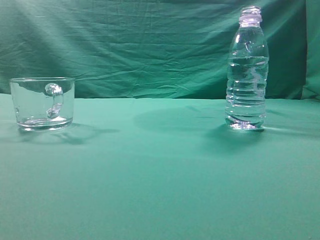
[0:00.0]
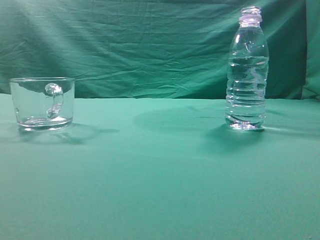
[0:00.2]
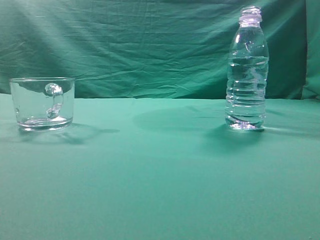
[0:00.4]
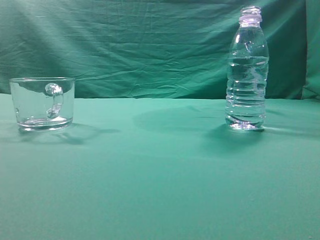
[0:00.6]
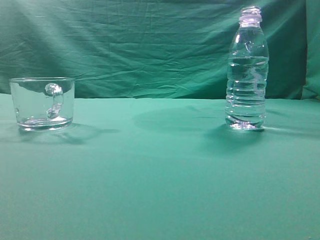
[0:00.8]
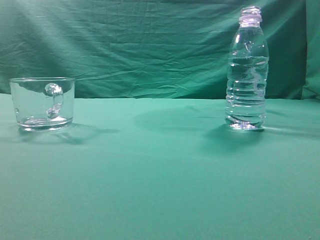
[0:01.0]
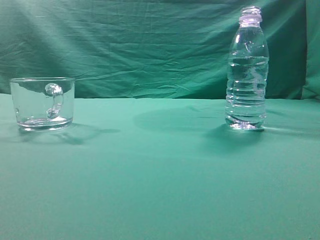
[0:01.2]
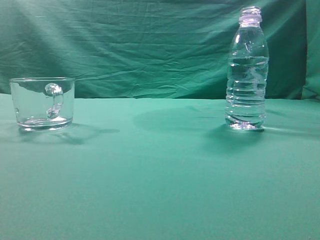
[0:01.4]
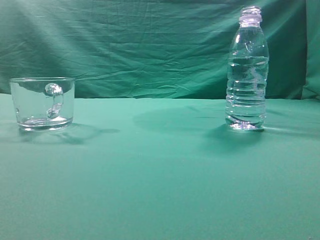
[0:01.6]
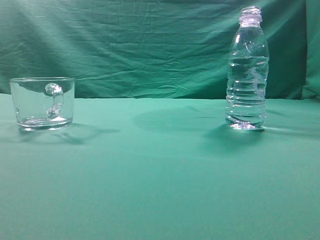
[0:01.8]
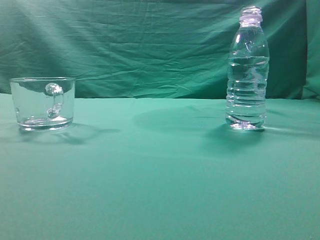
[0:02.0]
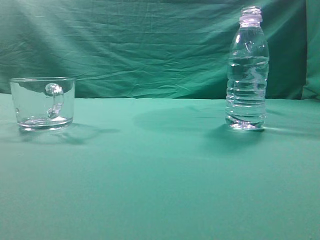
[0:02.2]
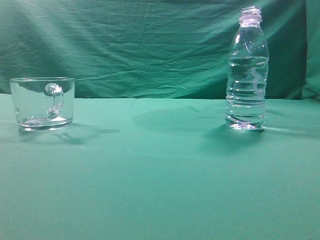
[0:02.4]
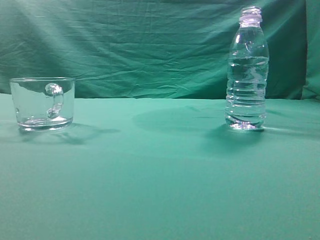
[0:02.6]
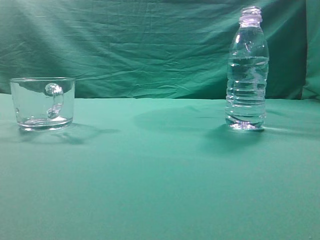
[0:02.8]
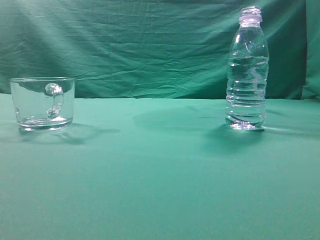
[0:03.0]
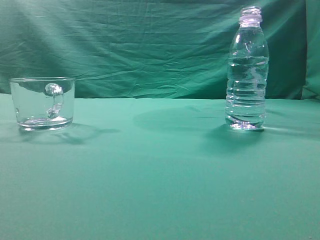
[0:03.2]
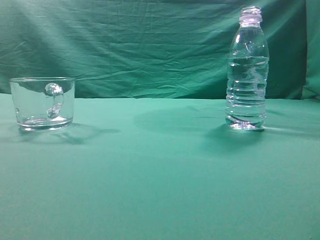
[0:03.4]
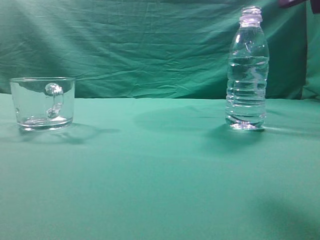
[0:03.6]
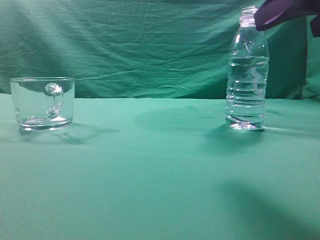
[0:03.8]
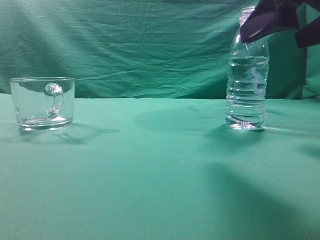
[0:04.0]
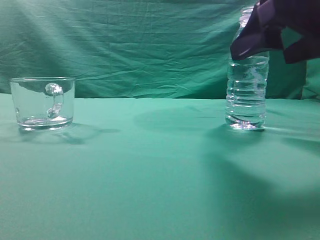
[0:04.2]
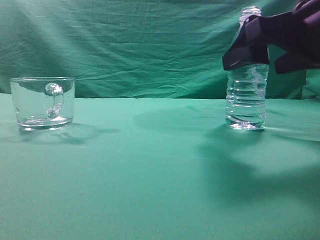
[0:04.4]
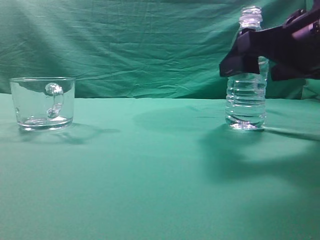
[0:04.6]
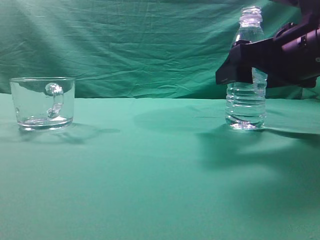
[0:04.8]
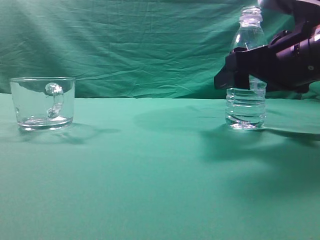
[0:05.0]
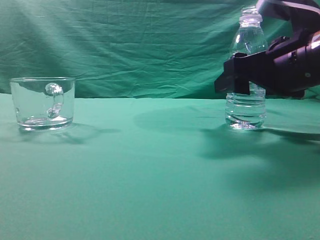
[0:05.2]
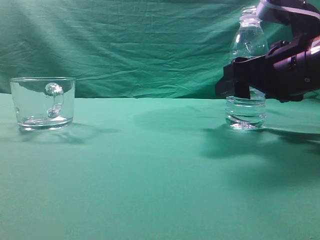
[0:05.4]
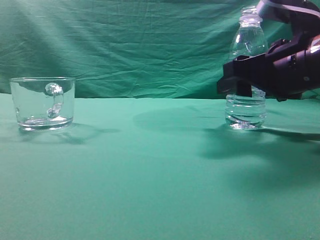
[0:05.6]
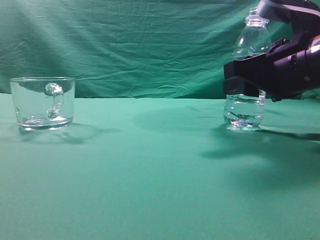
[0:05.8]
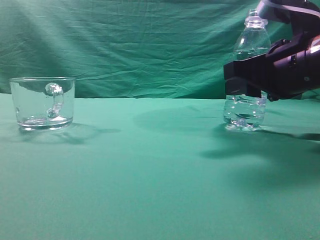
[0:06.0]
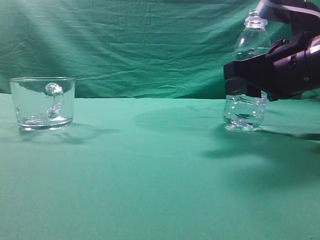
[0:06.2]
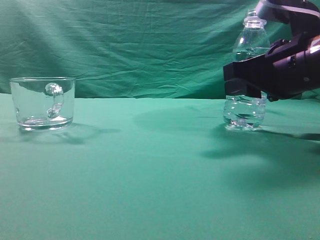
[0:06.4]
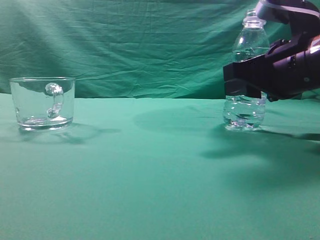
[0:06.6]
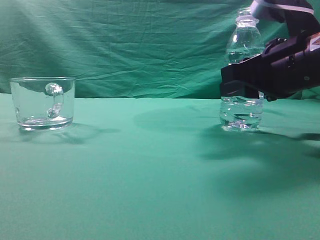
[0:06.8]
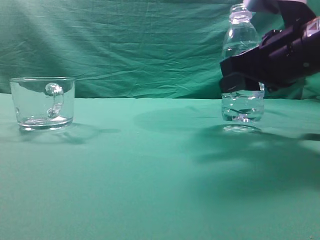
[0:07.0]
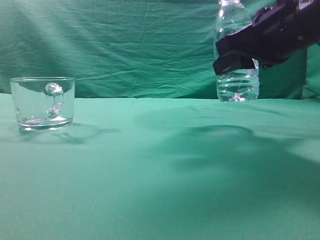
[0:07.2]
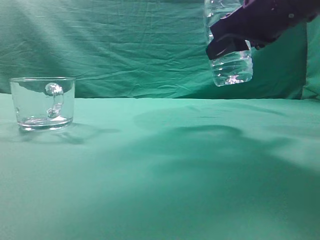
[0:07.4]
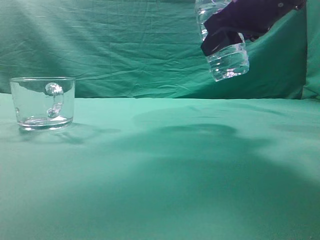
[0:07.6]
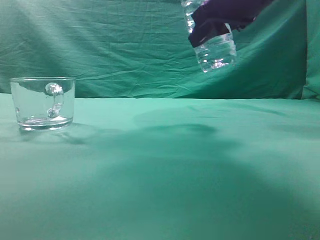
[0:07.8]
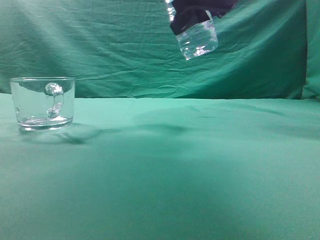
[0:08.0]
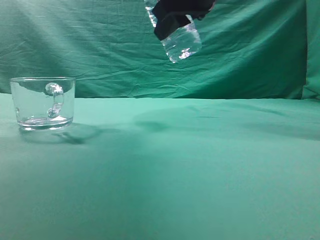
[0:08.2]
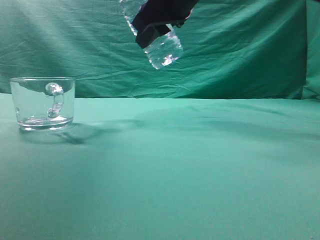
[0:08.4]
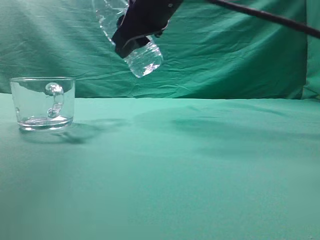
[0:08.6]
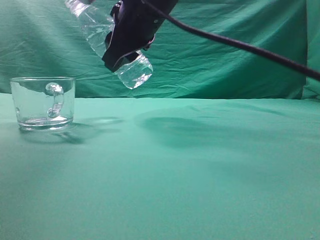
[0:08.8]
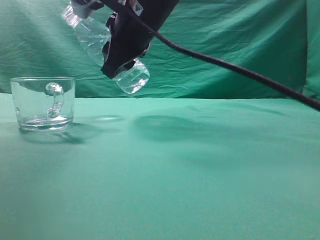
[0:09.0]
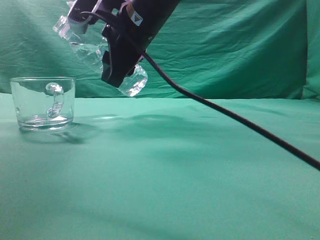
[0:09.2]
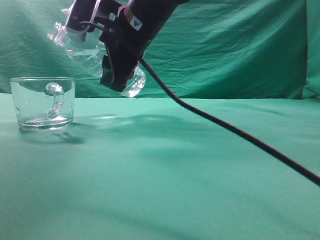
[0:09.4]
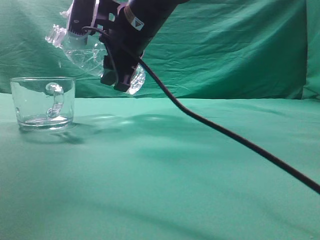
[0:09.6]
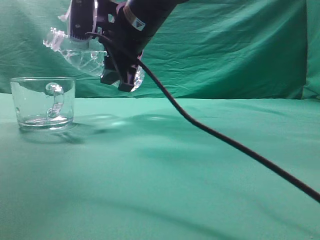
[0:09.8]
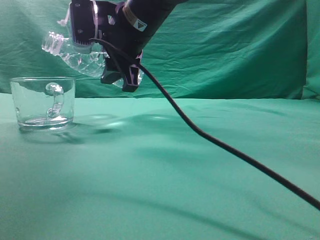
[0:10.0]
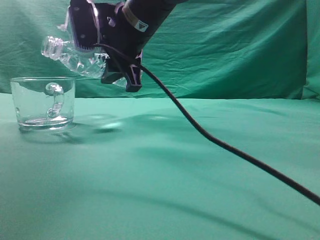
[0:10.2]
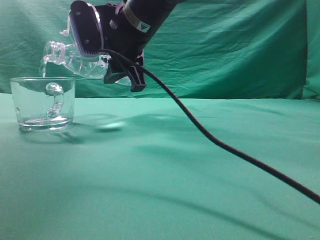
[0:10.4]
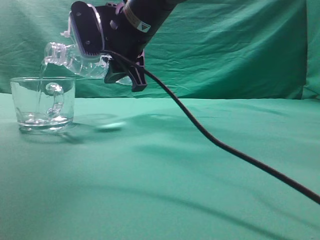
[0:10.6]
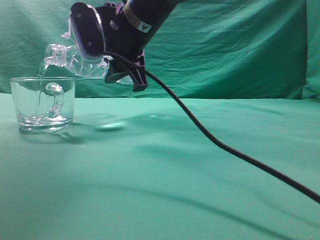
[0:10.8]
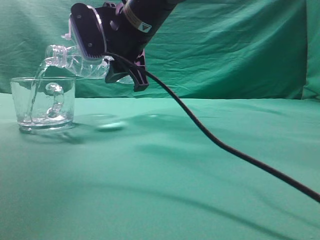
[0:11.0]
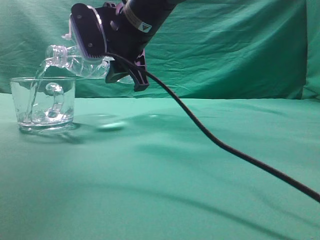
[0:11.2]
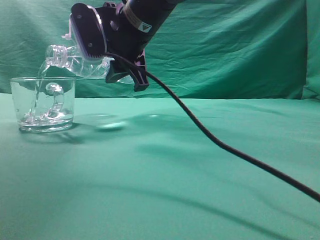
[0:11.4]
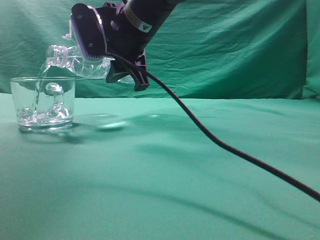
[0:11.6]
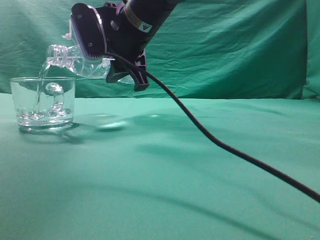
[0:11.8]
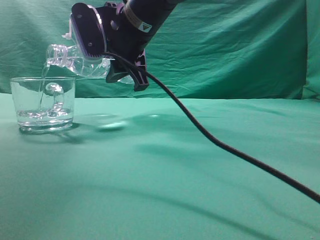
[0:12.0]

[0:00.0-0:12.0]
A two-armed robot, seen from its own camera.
Task of the whole recording: pick up the water bottle and pour the water in it into the glass.
Step, 0:00.0 to 0:07.2: Grasp the mineral water bottle.
0:03.0 to 0:04.4: The right gripper heads forward, downward and to the left, covering some 20 cm, and opens up.
0:04.4 to 0:06.0: The right gripper ends up some 5 cm from where it was, and closes its fingers.
0:06.0 to 0:07.6: The right gripper goes about 10 cm upward.
0:07.6 to 0:09.0: The right gripper goes roughly 15 cm to the left.
0:10.4 to 0:12.0: Neither gripper changes place.

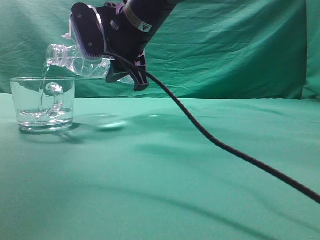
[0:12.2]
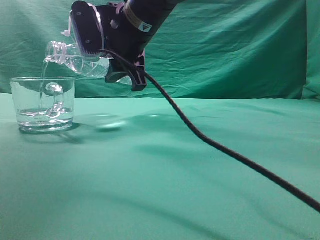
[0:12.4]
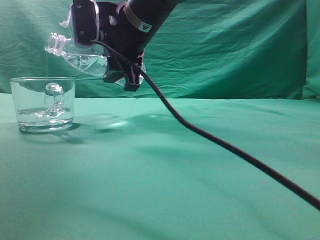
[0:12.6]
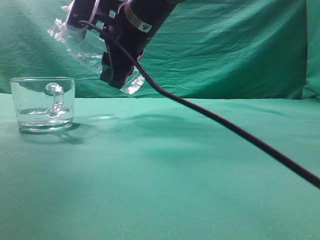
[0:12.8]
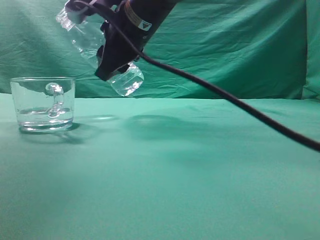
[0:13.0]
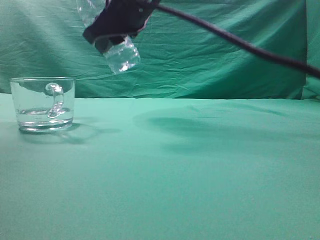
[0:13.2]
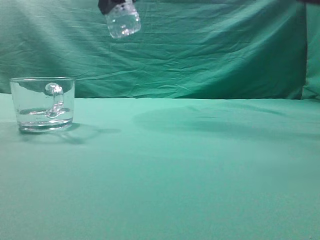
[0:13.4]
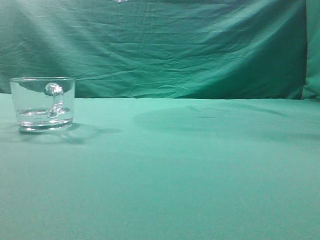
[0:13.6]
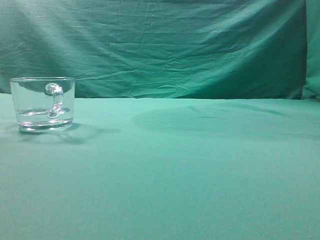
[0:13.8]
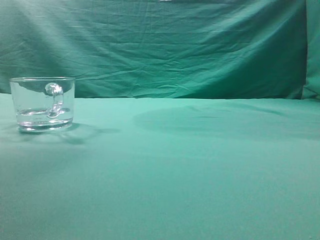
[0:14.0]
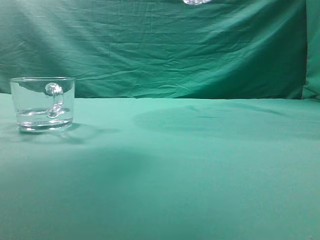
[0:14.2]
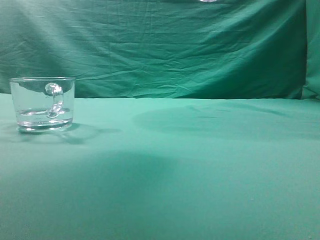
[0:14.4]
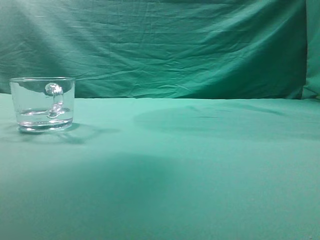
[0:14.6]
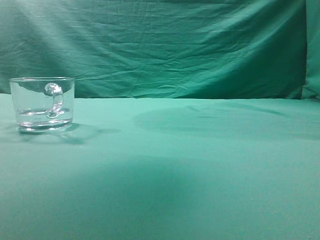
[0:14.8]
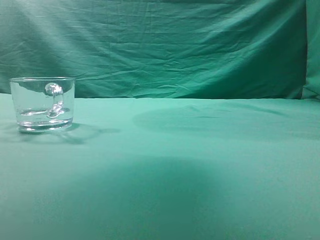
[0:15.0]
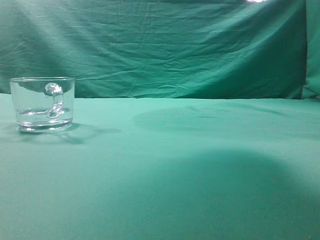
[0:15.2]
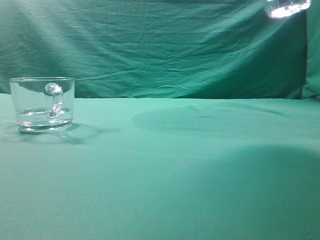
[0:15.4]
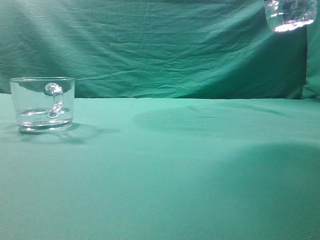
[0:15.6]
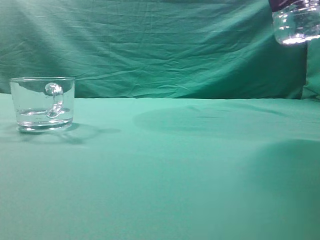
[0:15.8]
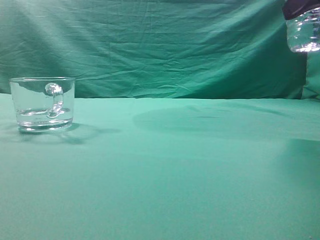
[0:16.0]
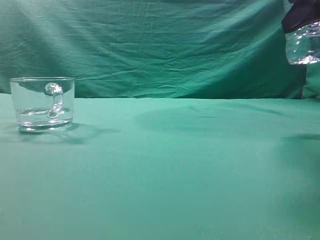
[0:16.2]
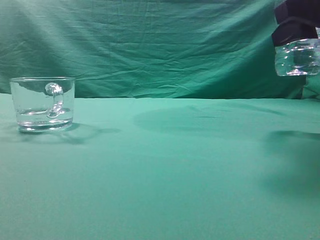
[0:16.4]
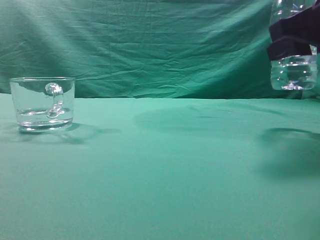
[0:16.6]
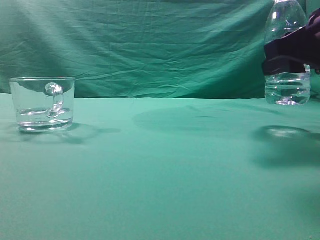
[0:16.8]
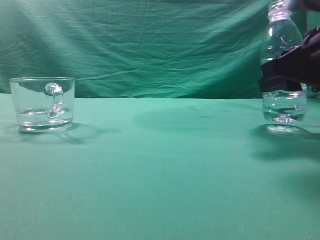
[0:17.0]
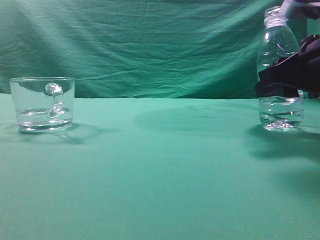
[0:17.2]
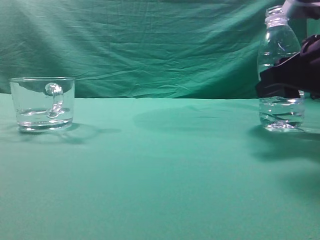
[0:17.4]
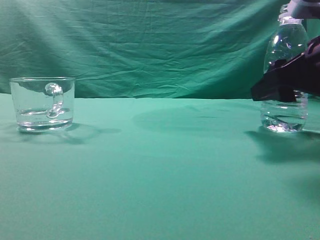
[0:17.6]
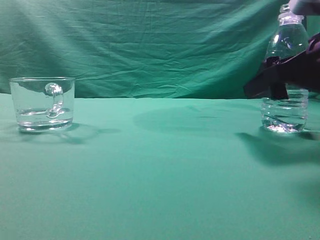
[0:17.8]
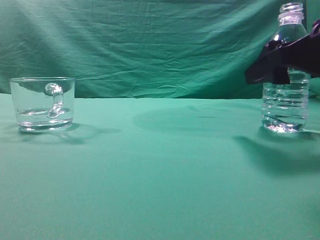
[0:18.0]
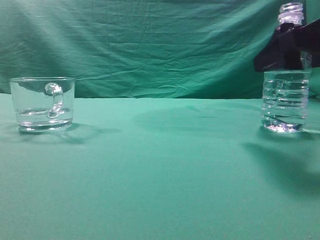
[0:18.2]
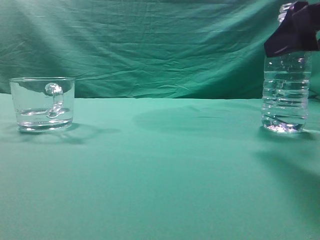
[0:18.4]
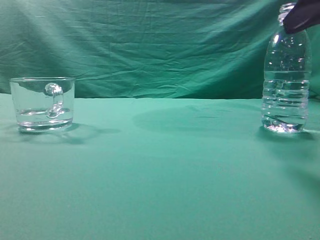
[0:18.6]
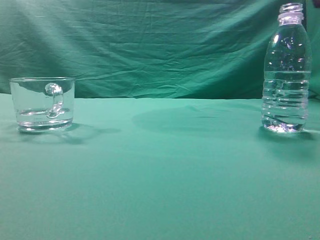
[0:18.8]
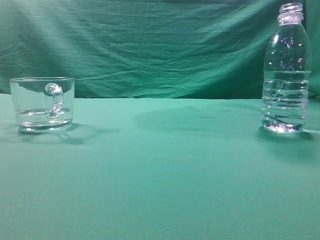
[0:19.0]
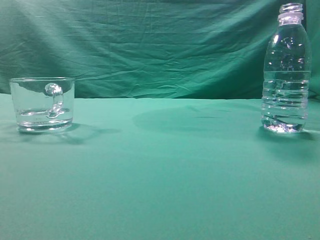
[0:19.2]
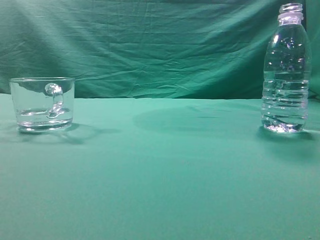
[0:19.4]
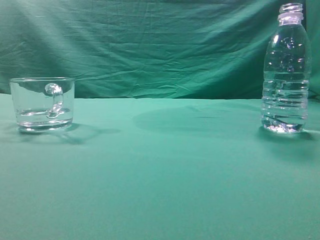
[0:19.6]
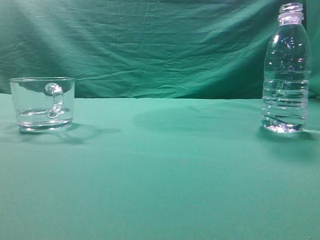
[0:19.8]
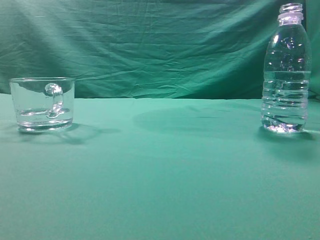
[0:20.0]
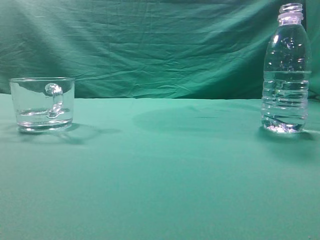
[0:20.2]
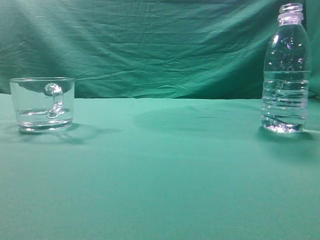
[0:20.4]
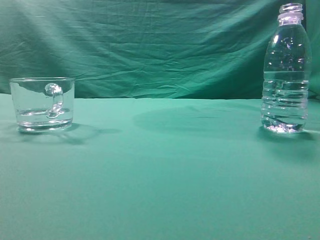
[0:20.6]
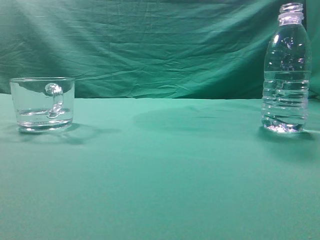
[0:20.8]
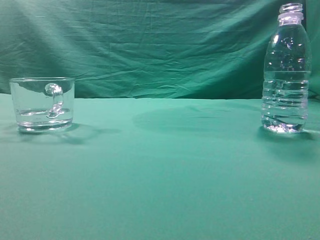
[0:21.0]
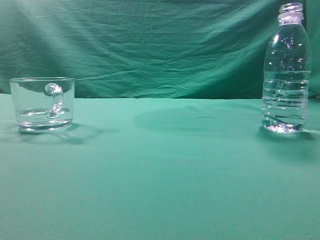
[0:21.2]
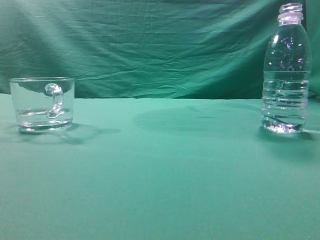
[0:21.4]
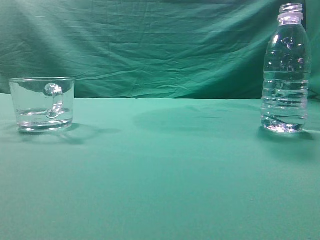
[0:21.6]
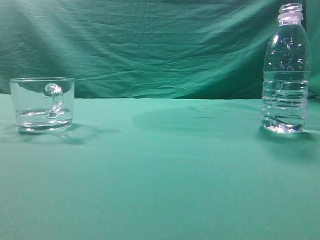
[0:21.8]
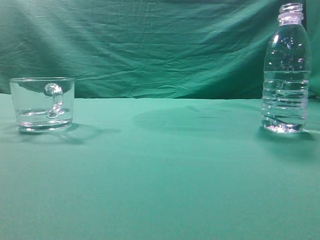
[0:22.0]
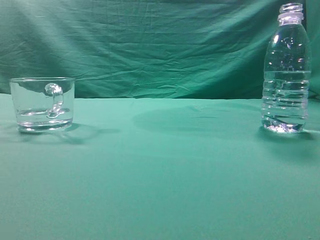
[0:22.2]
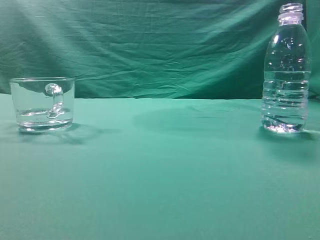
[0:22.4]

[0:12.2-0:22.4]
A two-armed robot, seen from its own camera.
Task of the whole recording: pick up the water bottle and pour the water in it into the glass.
0:12.2 to 0:13.6: The right gripper is displaced upward by approximately 15 cm.
0:13.6 to 0:15.2: The right gripper goes some 20 cm to the right.
0:15.2 to 0:16.6: The right gripper shifts roughly 15 cm downward.
0:16.6 to 0:18.0: The right gripper opens up.
0:18.0 to 0:19.4: The right gripper heads backward and upward, covering approximately 20 cm, and closes its fingers.
